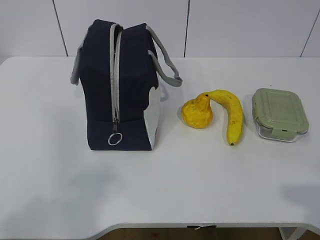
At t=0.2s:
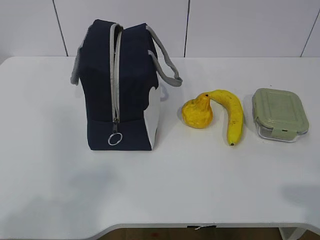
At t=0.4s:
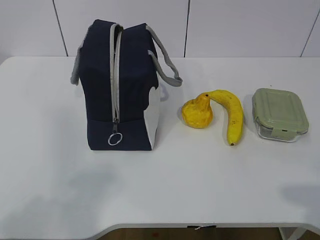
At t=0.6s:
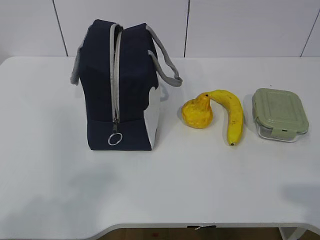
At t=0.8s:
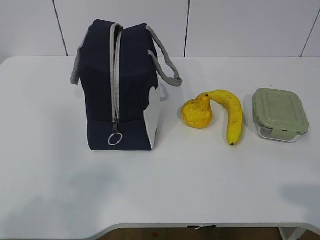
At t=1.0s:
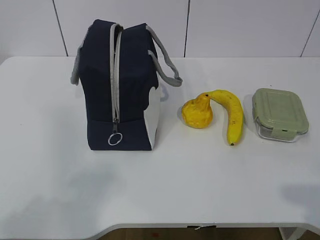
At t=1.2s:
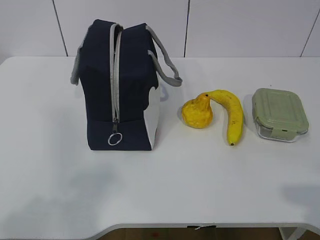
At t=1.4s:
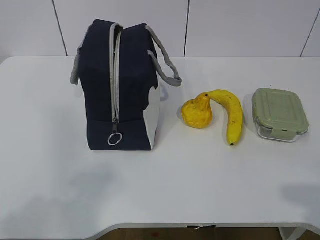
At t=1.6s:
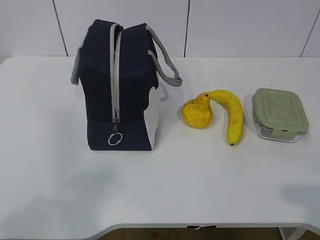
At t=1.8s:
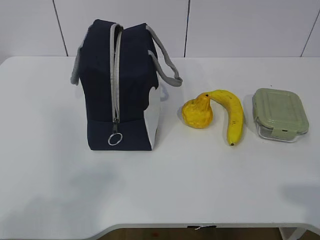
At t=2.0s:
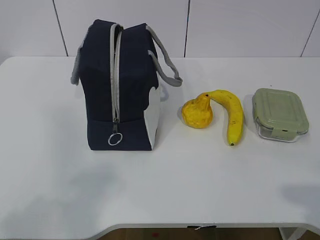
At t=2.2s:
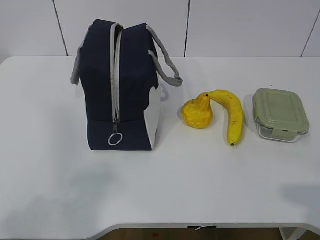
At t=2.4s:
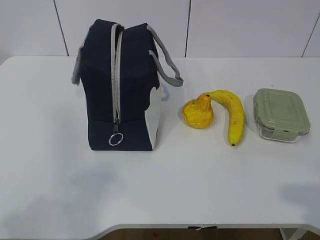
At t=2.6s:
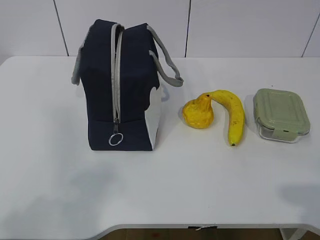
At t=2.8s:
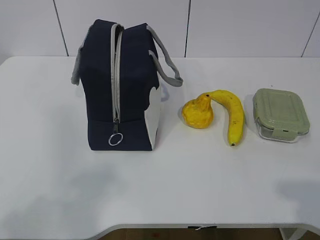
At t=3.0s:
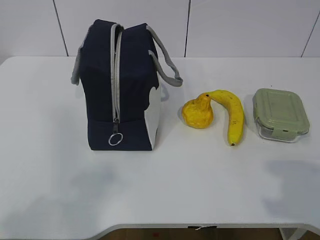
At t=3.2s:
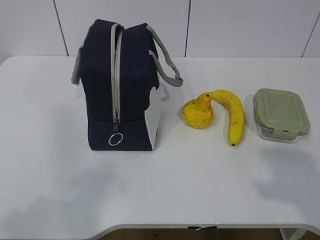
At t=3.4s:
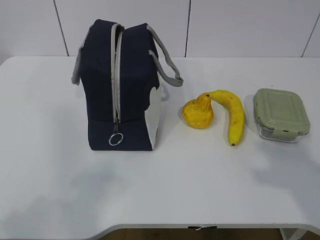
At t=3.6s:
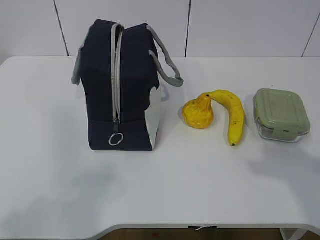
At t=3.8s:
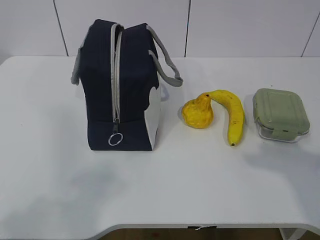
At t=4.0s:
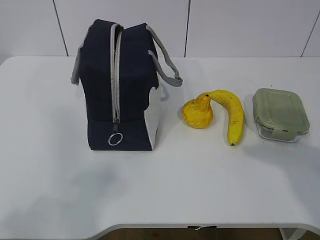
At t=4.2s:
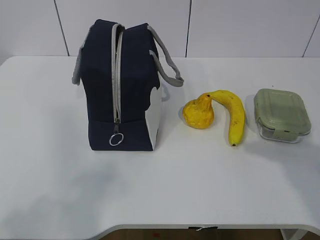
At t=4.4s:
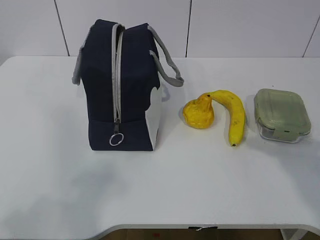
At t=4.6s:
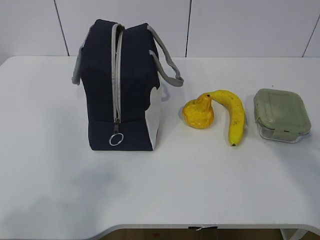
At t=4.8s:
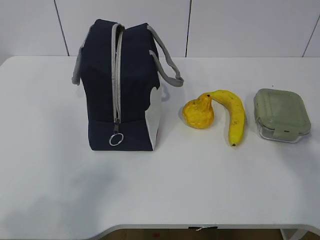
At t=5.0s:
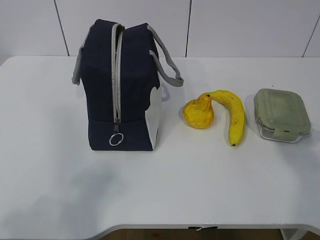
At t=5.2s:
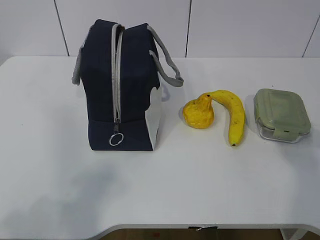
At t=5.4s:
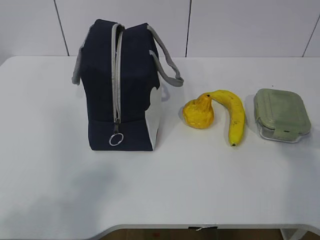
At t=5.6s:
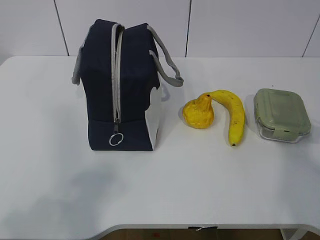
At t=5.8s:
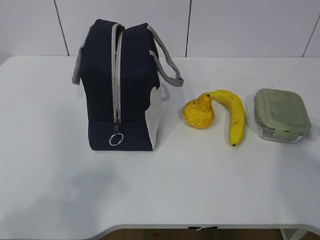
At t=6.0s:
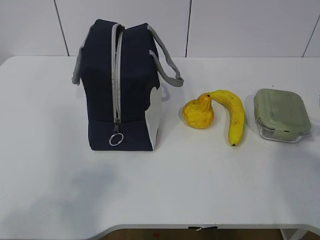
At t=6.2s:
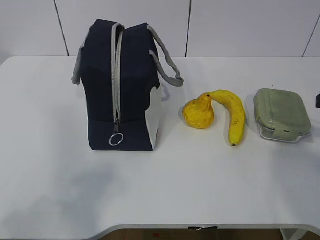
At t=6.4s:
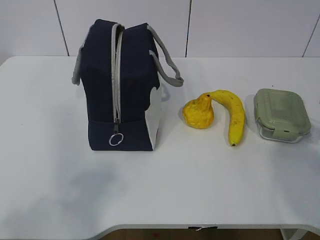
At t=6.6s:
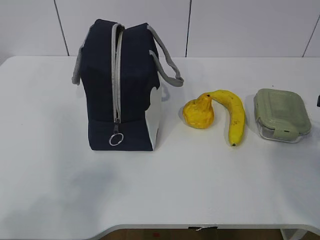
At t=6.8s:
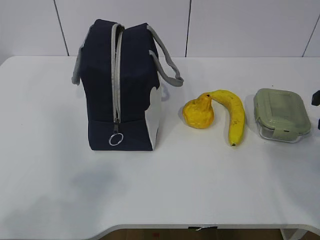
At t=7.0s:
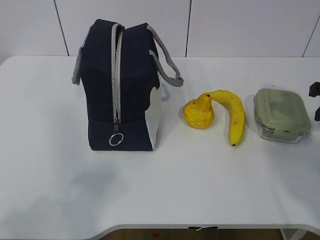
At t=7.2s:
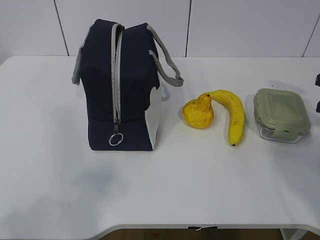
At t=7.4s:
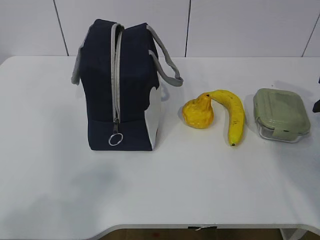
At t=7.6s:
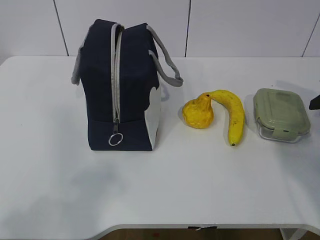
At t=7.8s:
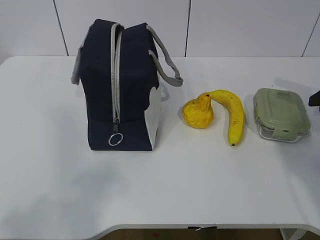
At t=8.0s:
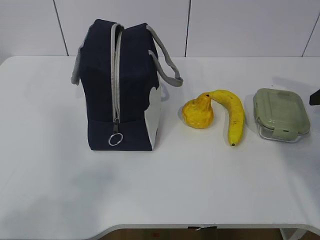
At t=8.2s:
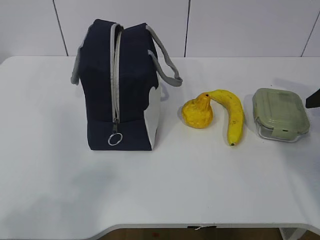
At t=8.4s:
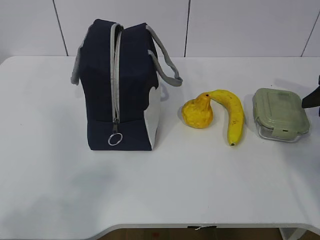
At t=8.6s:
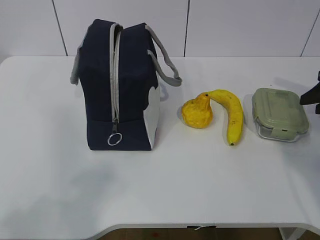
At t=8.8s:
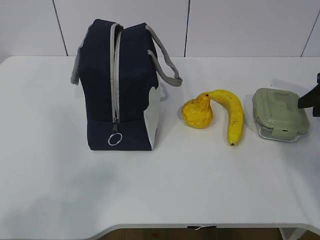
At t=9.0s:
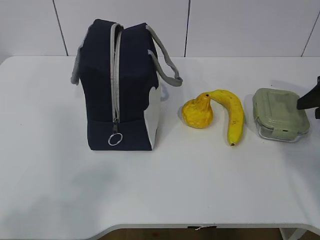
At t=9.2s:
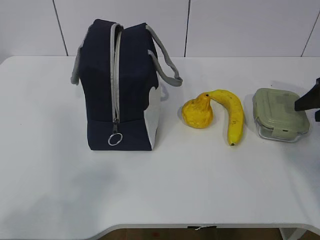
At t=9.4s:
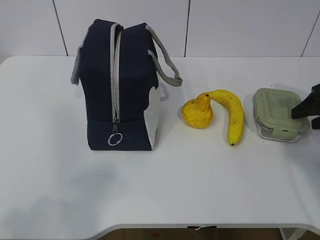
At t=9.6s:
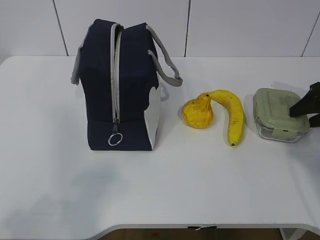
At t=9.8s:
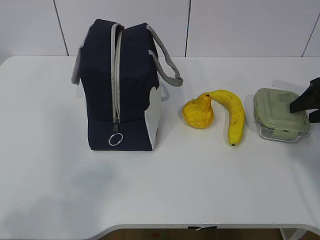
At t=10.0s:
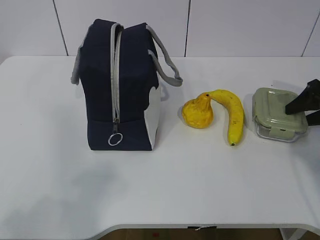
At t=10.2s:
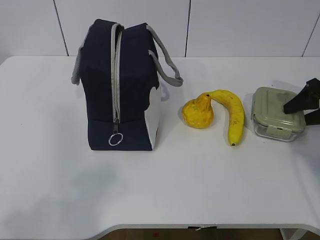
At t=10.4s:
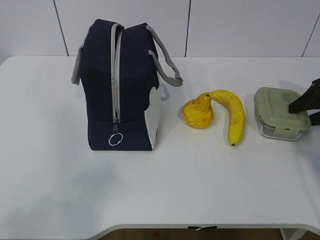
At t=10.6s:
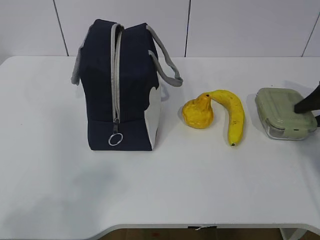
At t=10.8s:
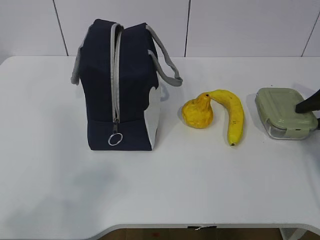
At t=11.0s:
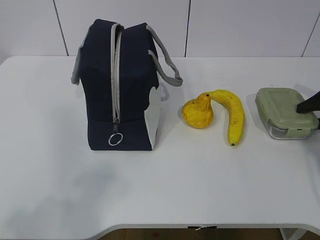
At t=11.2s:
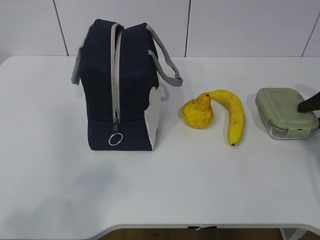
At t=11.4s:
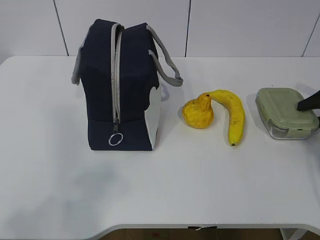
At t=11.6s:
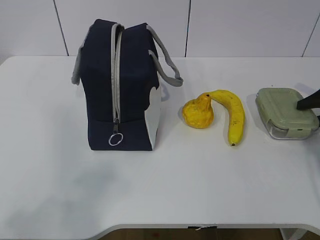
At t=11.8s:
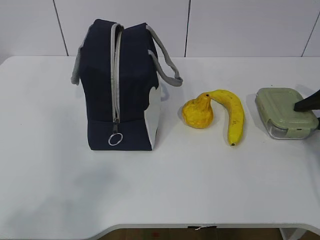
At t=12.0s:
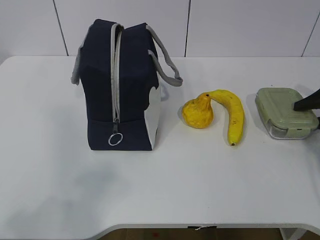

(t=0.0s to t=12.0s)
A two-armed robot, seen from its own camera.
Step, t=0.0s - t=10.8s: Grab the lunch box with your right hand.
t=1.6s - t=3.0s: The grippers make only small movements.
t=3.0s - t=4.4s: The right gripper shifts about 15 cm forward.
t=4.4s - t=6.0s: The right gripper heads forward, covering approximately 10 cm.
t=6.0s - t=7.6s: The right gripper heads forward and to the right, covering about 10 cm.
t=7.6s - t=9.0s: The right gripper opens.
t=9.0s - t=10.4s: The right gripper ends up about 5 cm from where it was.
t=10.4s - t=12.0s: The grippers make only small movements.

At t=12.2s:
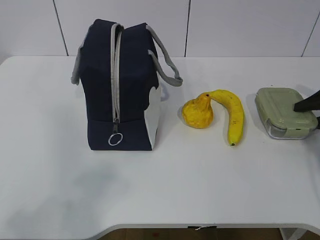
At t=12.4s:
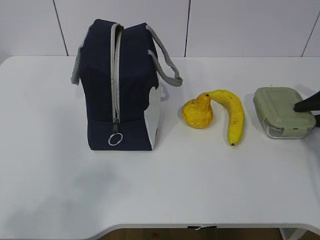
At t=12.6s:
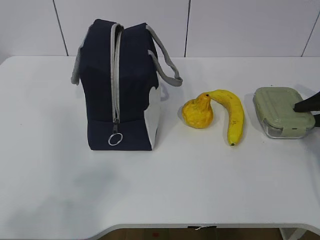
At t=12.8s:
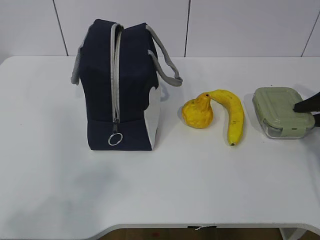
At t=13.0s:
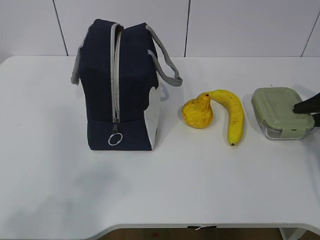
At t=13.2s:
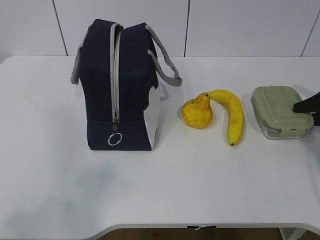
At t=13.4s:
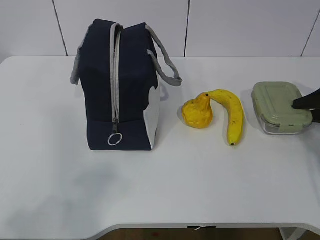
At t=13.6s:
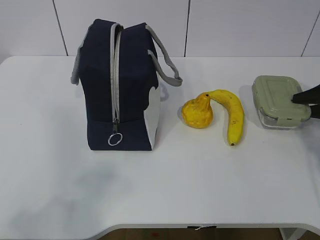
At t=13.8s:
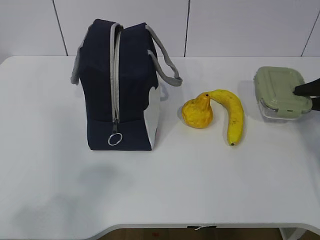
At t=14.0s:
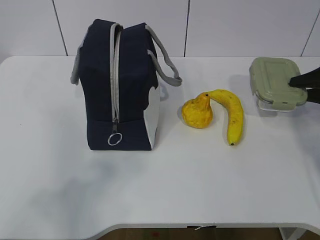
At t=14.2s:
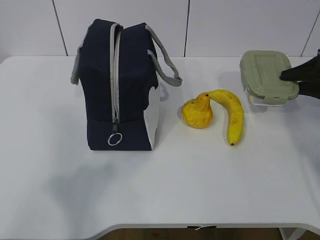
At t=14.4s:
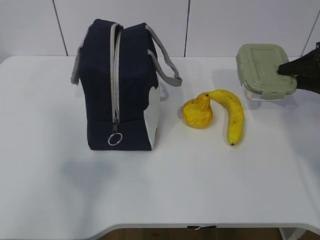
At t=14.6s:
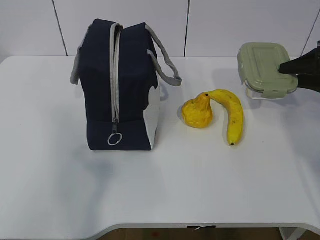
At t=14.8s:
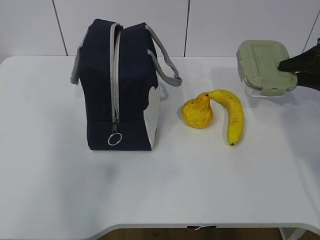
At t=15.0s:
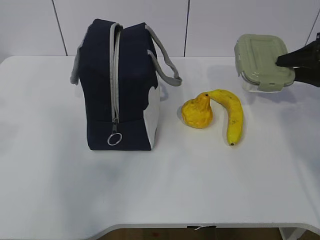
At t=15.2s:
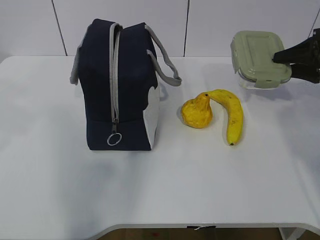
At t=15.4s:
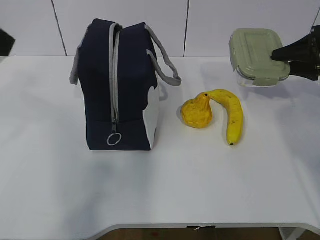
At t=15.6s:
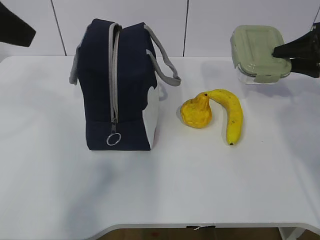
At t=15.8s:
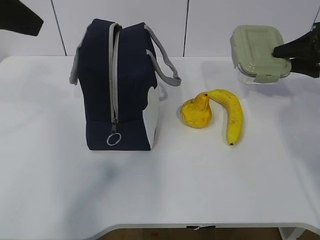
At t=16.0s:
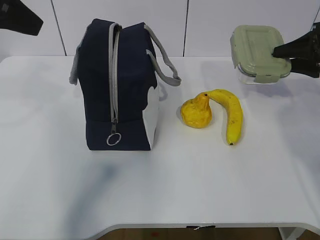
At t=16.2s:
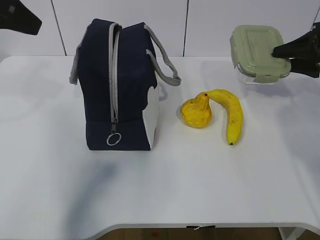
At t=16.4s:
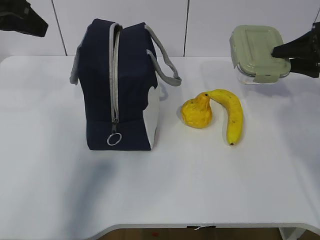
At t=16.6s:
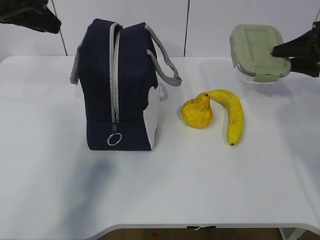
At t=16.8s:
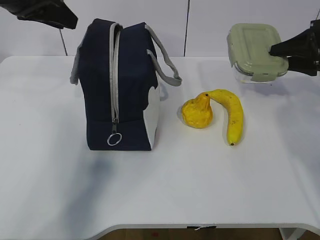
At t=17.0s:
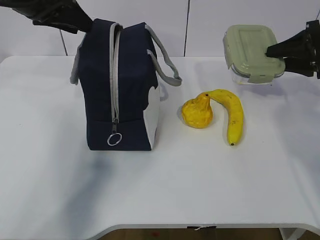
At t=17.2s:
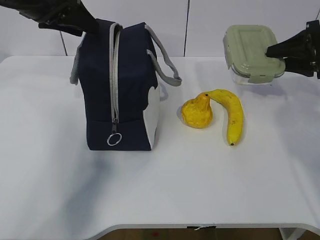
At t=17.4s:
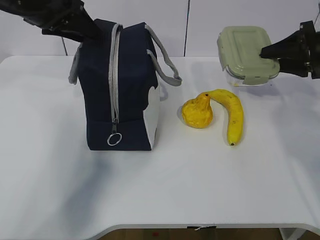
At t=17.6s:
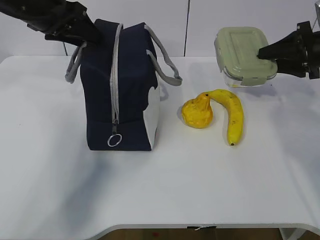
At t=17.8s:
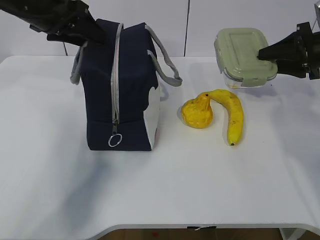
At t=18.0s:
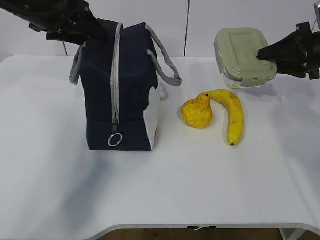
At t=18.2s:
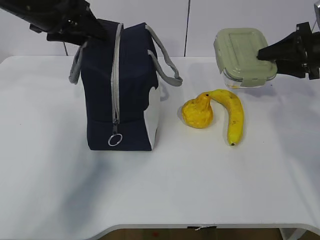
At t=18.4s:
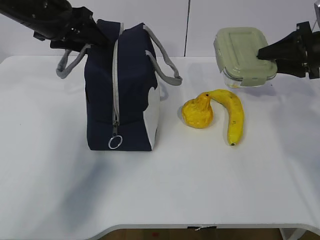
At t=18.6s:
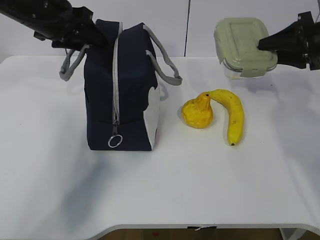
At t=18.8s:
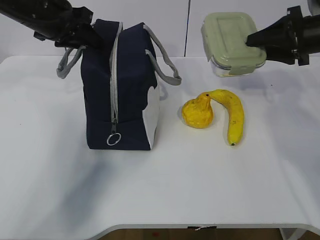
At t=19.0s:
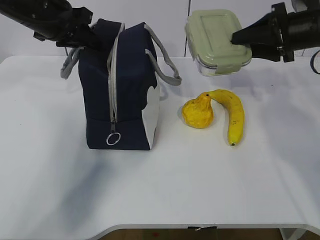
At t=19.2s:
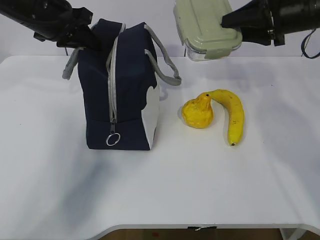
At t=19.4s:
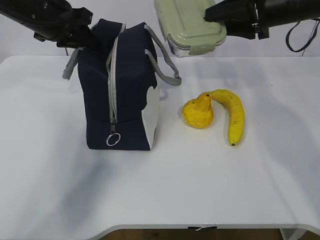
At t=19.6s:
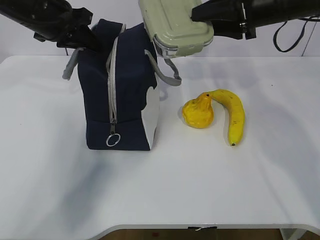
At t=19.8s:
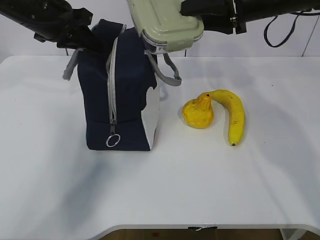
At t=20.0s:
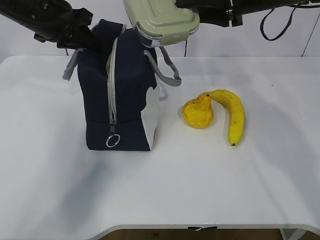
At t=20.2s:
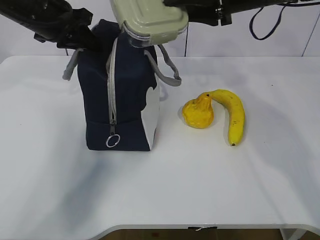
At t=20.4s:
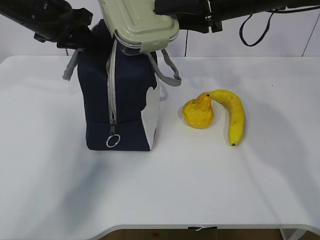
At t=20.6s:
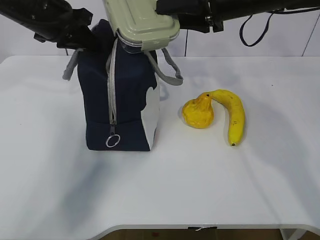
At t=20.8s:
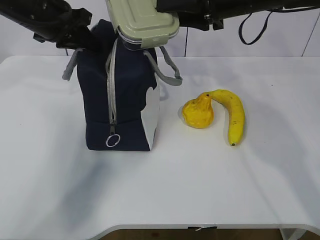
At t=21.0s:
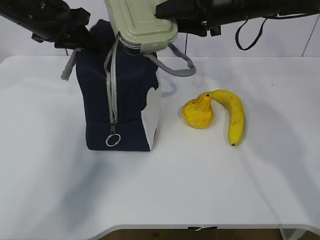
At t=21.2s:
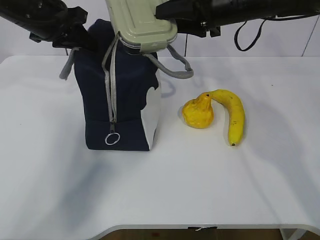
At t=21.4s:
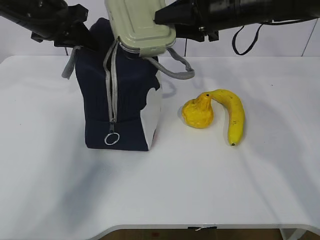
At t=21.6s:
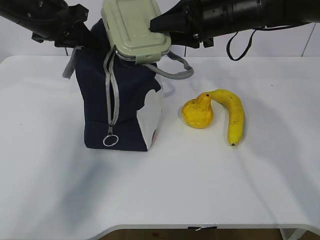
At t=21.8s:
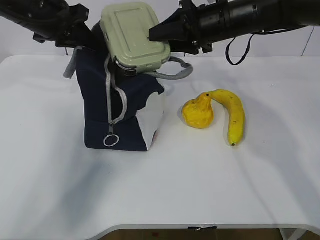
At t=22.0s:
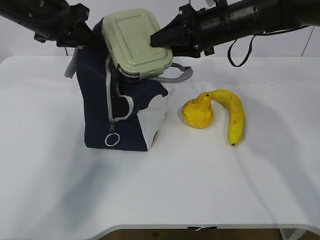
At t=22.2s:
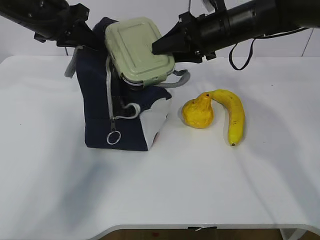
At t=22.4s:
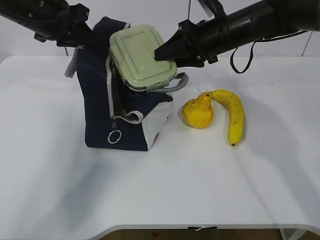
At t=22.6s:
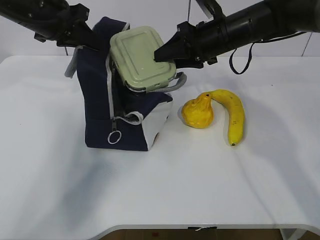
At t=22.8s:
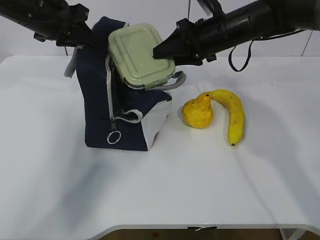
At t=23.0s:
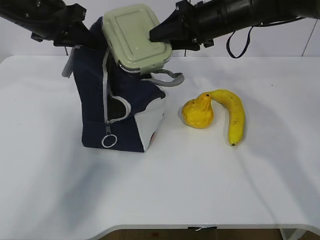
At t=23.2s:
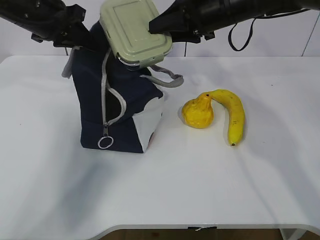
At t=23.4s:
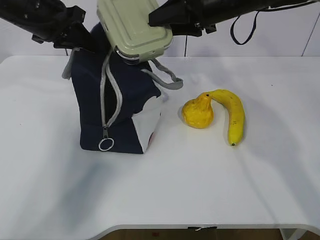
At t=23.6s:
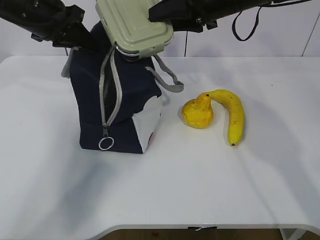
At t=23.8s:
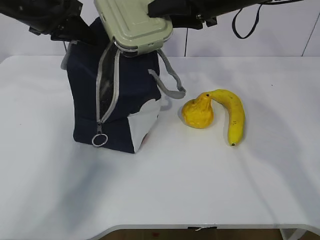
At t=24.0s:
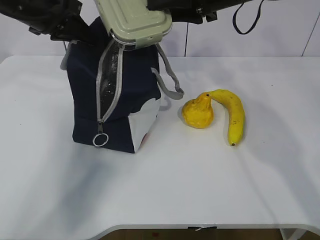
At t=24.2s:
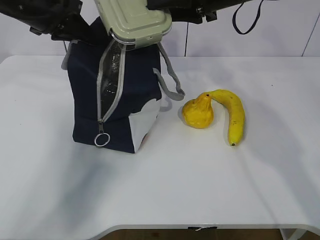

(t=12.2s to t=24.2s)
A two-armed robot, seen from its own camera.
Step, t=12.2s - t=17.2s: Grab the lunch bag with your left hand.
Step, t=17.6s - t=24.0s: Place it into the bag with your right hand.
t=12.2s - t=13.8s: The grippers stay close to where they were, moving slightly.
t=13.8s - t=15.2s: The left gripper is displaced forward and upward by about 20 cm. Meanwhile the right gripper goes roughly 10 cm upward and to the left.
t=15.2s - t=16.6s: The left gripper shifts about 20 cm forward.
t=16.6s - t=18.2s: The left gripper goes some 5 cm forward, and opens.
t=18.2s - t=19.8s: The left gripper closes up. The right gripper travels to the left and upward by some 15 cm.
t=19.8s - t=21.2s: The grippers move only a little.
t=21.2s - t=22.6s: The right gripper travels downward by about 5 cm.
t=22.6s - t=24.2s: The right gripper travels upward by approximately 10 cm.
